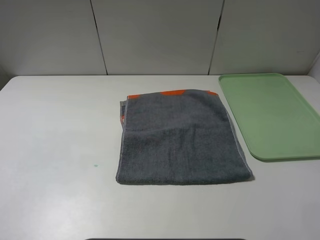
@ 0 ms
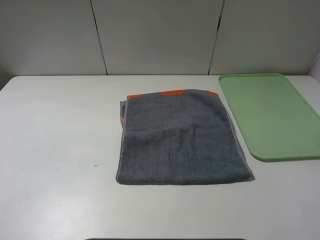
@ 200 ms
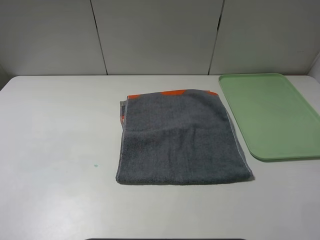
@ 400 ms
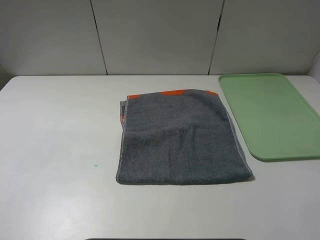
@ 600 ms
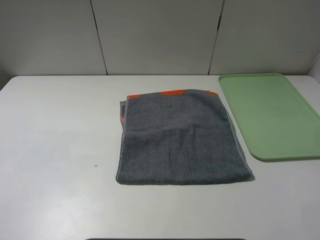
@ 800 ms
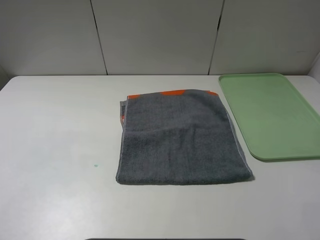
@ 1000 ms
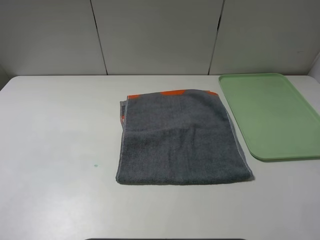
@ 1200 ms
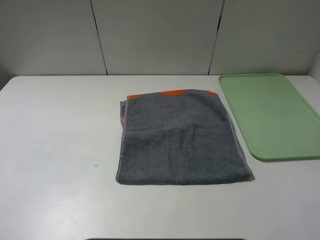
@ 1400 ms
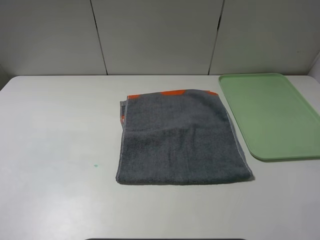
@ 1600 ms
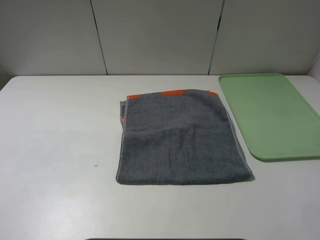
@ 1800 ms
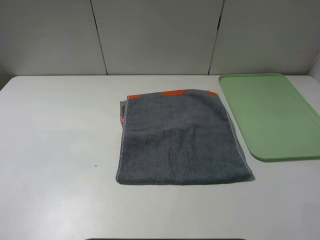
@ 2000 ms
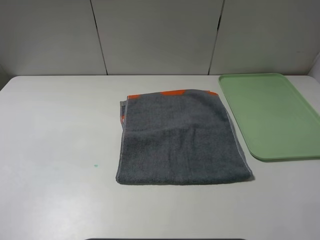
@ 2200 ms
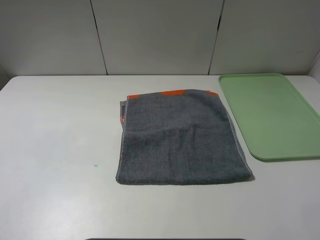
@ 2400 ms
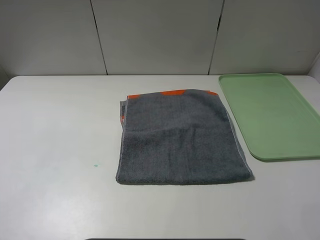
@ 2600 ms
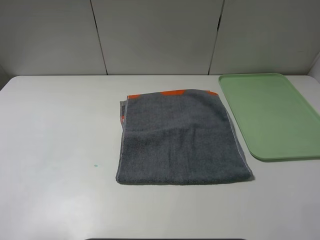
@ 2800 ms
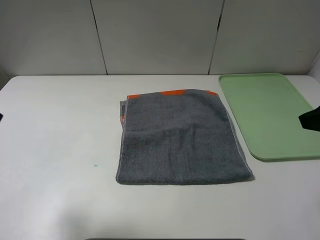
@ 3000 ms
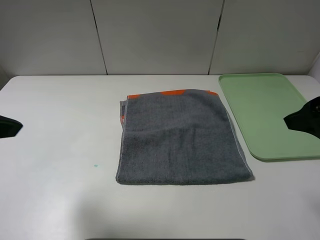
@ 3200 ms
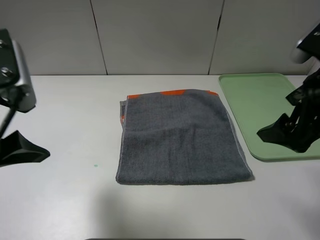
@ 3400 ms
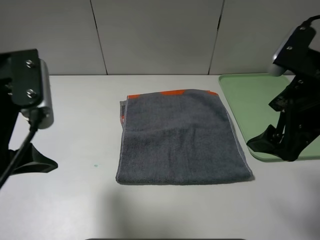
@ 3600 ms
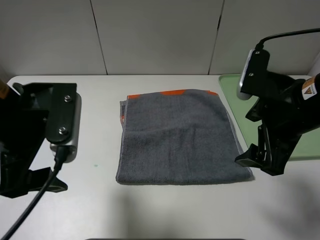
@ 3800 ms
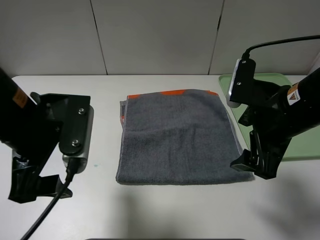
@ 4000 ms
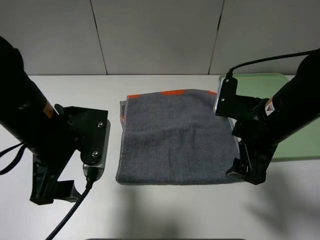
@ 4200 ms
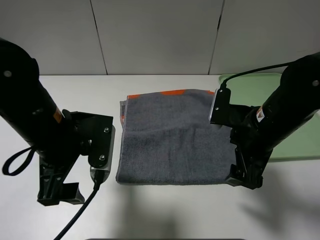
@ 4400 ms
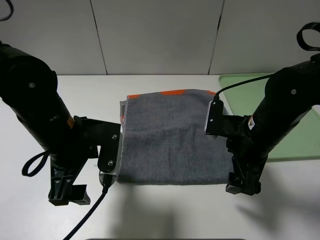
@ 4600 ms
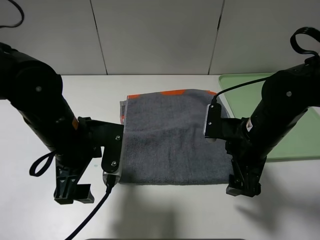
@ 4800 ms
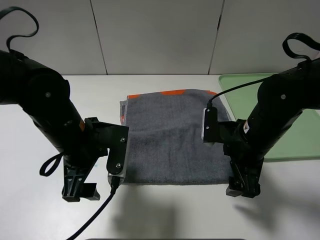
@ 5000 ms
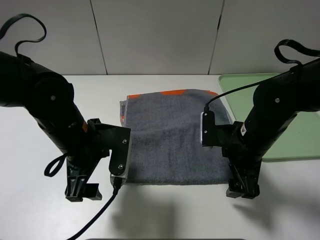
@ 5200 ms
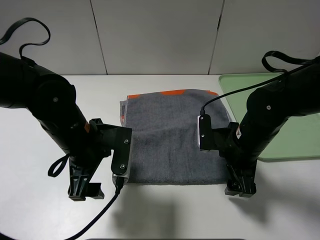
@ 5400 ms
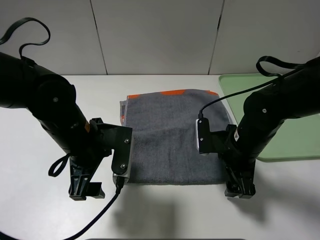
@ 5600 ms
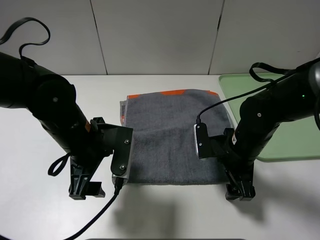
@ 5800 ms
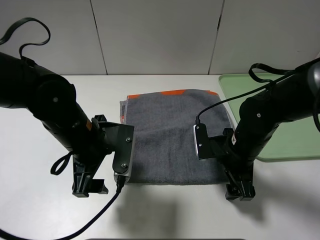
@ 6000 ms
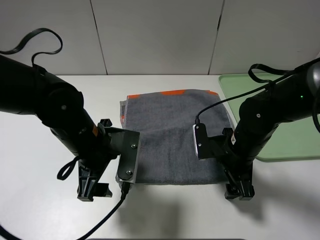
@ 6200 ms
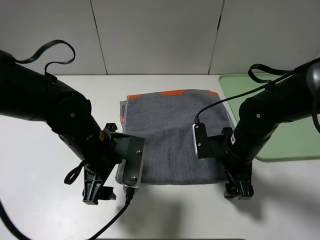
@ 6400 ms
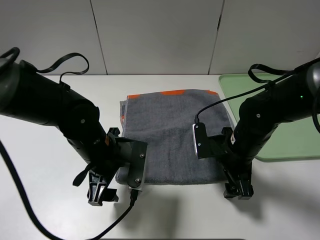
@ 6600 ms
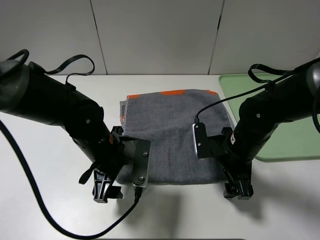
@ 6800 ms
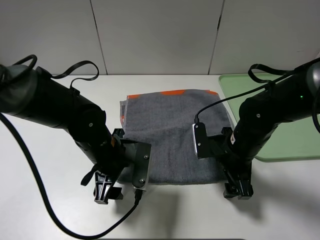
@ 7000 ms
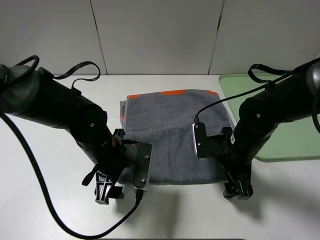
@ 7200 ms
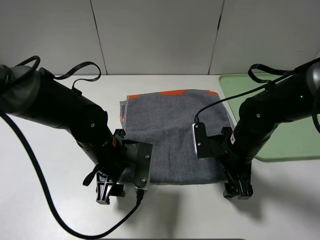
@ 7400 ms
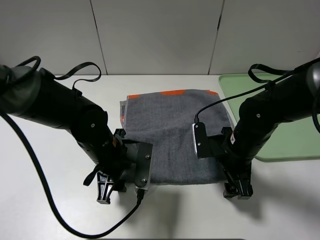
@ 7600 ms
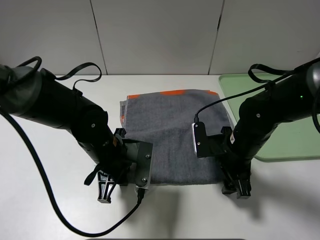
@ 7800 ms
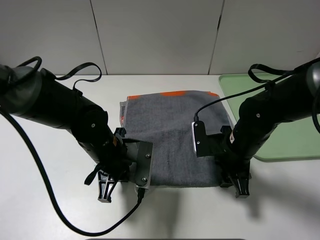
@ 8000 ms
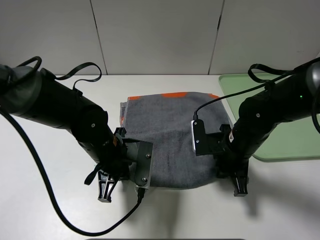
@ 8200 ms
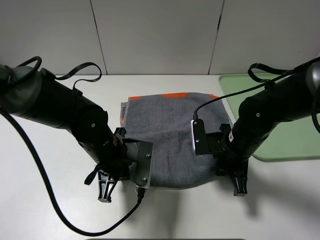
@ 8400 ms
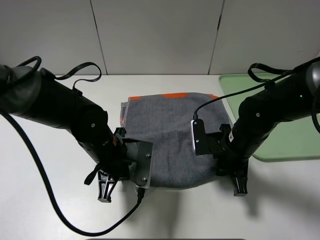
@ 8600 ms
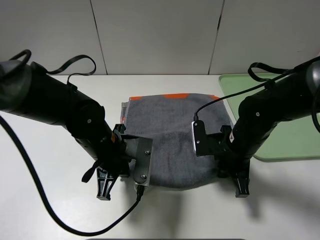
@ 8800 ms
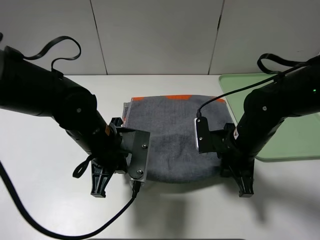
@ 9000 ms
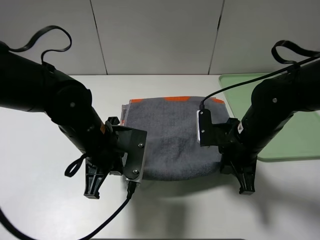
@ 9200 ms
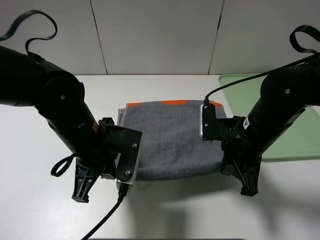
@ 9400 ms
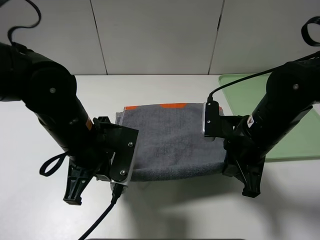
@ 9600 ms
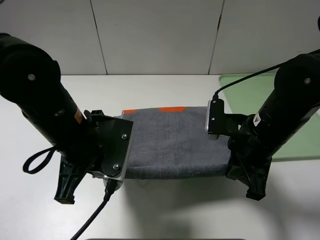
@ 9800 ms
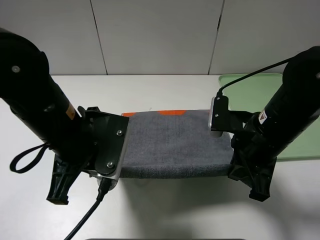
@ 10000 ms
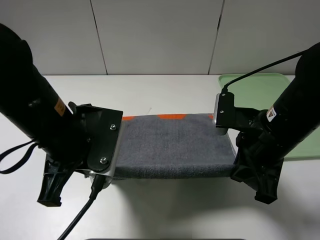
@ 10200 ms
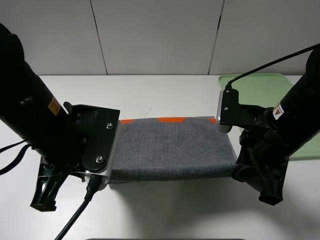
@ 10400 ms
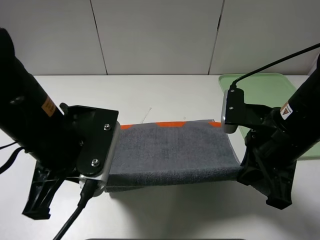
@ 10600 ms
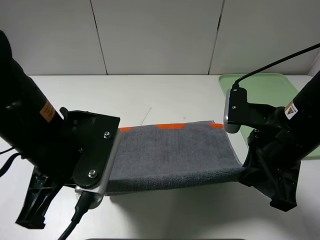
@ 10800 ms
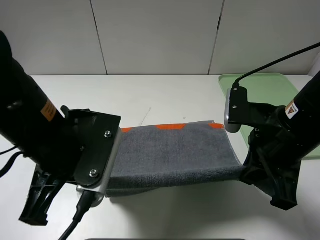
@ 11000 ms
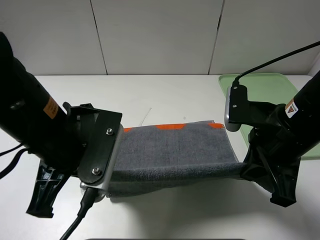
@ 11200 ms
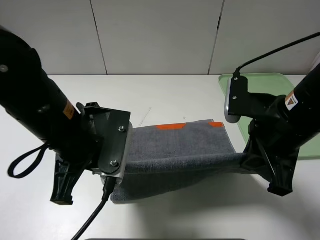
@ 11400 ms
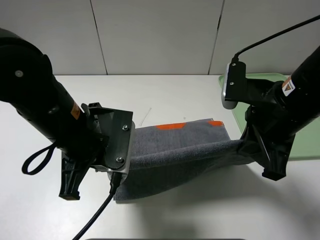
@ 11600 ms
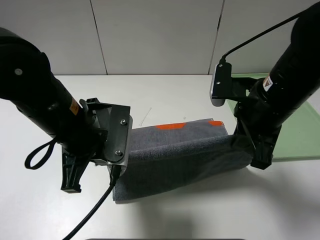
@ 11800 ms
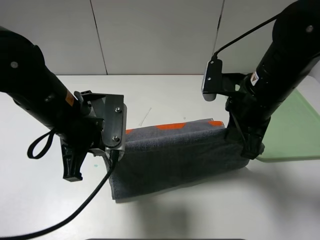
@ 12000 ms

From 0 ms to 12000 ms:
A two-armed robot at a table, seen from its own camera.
From 0 ms to 1600 ms: Both grippers stay about where they are.
From 1600 ms to 3000 ms: The right gripper is displaced forward by about 15 cm; the left gripper heads forward and upward, covering approximately 15 cm.
From 3000 ms to 4400 ms: The left gripper shifts some 20 cm downward, to the right and forward, while the right gripper heads downward, to the left and forward, covering approximately 20 cm.
From 4400 ms to 6000 ms: The right gripper is displaced downward by some 10 cm; the left gripper shifts by roughly 5 cm.
From 6000 ms to 7600 ms: The left gripper shifts some 5 cm downward, and closes up.
From 7600 ms to 9000 ms: The right gripper closes its fingers. Meanwhile the left gripper closes.
From 9000 ms to 10400 ms: Both grippers move upward, about 10 cm.
From 10400 ms to 12000 ms: The right gripper heads forward, covering approximately 5 cm, while the left gripper changes place by some 5 cm.

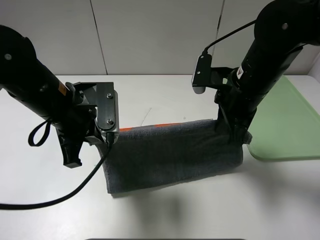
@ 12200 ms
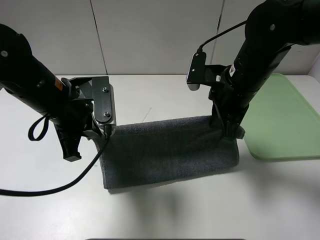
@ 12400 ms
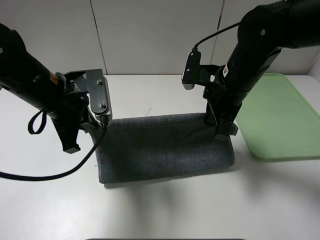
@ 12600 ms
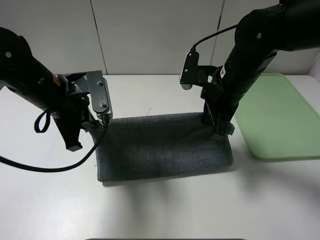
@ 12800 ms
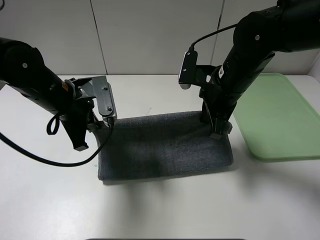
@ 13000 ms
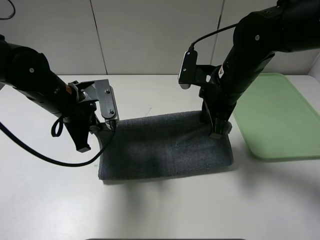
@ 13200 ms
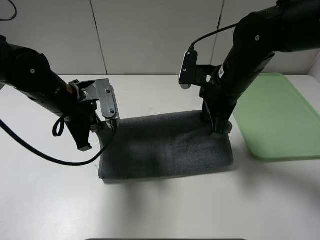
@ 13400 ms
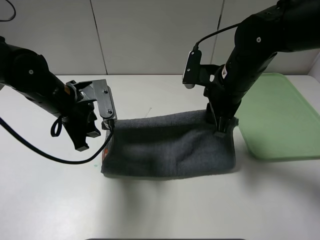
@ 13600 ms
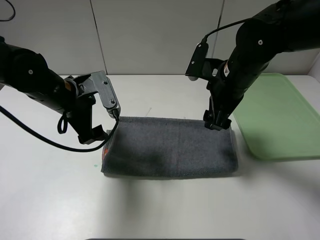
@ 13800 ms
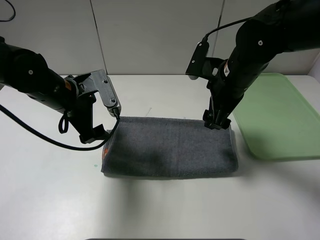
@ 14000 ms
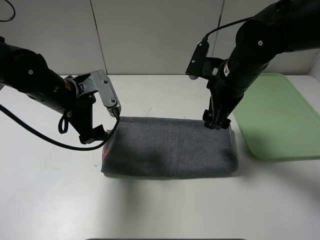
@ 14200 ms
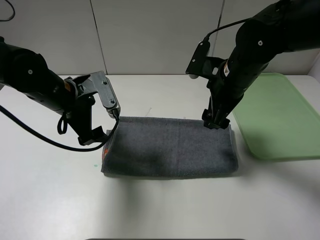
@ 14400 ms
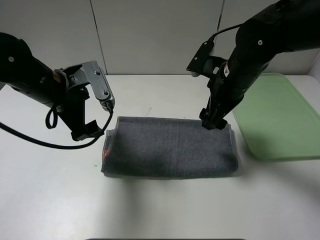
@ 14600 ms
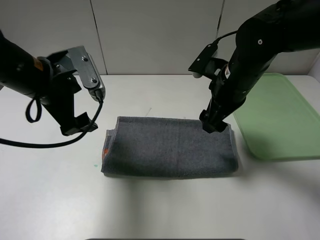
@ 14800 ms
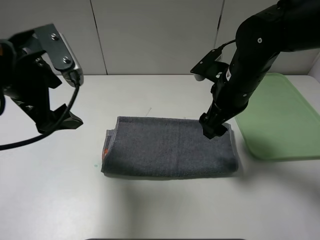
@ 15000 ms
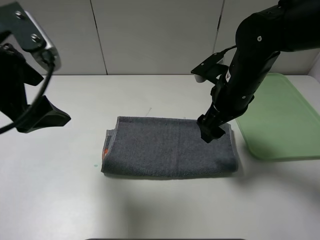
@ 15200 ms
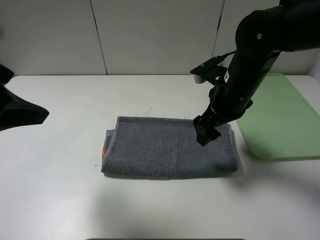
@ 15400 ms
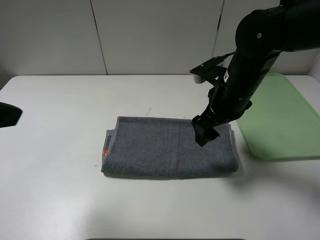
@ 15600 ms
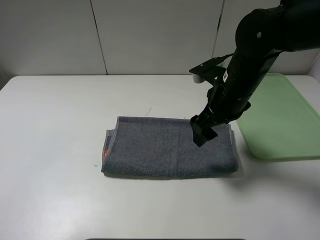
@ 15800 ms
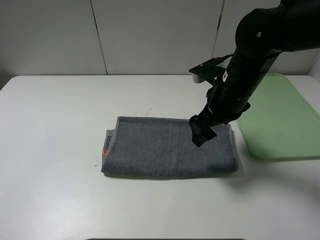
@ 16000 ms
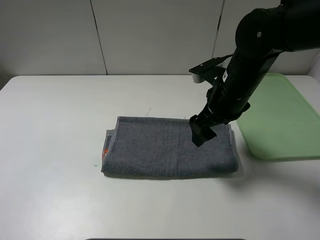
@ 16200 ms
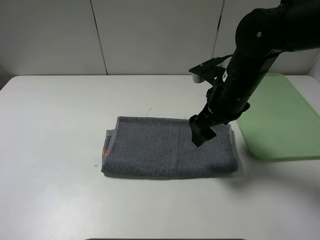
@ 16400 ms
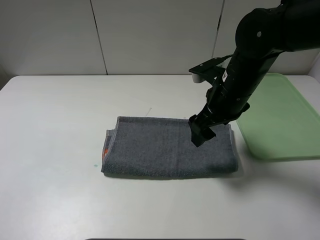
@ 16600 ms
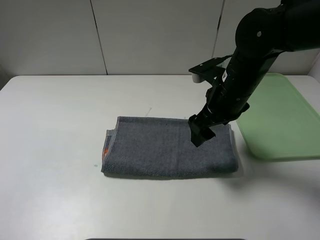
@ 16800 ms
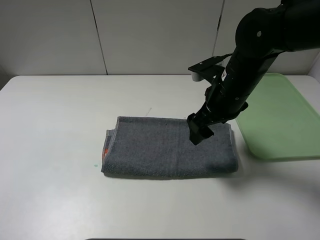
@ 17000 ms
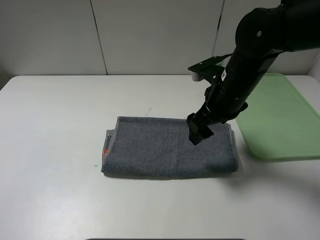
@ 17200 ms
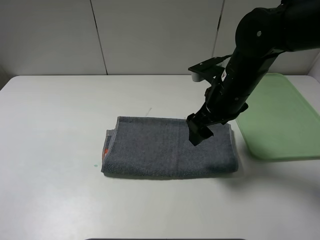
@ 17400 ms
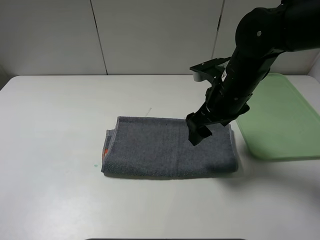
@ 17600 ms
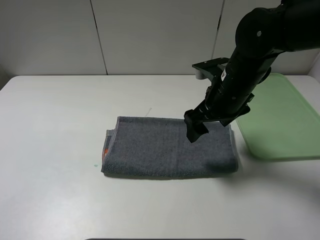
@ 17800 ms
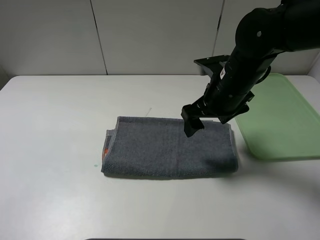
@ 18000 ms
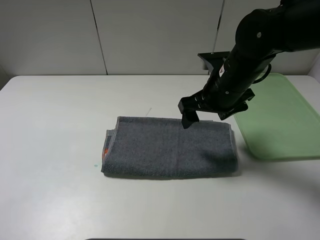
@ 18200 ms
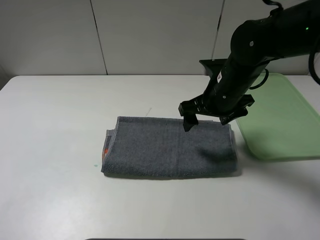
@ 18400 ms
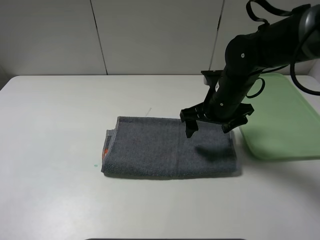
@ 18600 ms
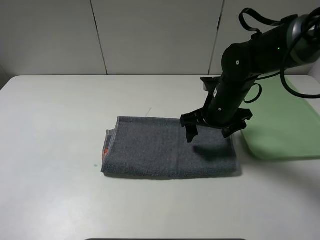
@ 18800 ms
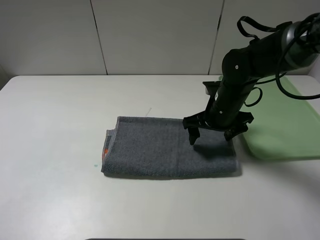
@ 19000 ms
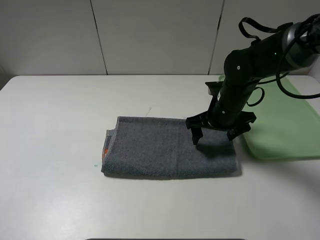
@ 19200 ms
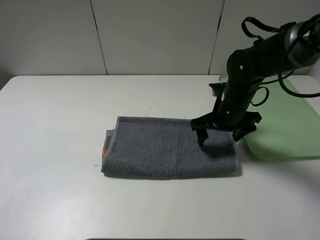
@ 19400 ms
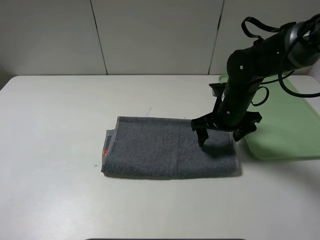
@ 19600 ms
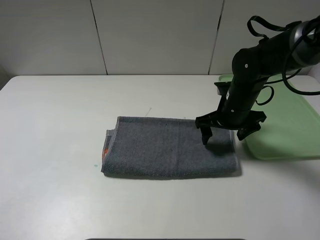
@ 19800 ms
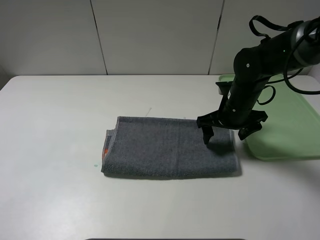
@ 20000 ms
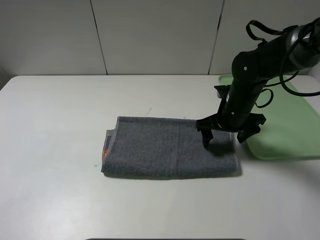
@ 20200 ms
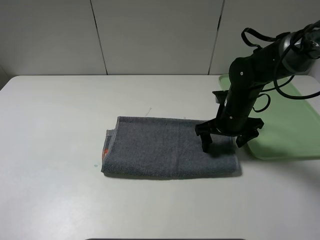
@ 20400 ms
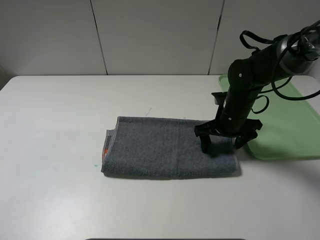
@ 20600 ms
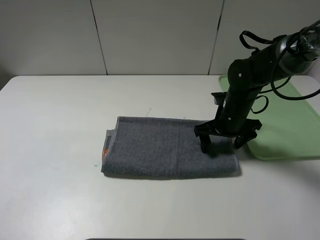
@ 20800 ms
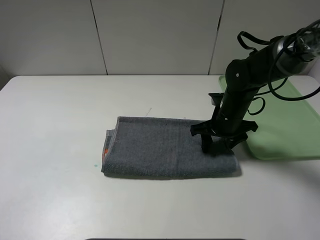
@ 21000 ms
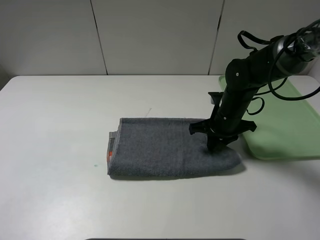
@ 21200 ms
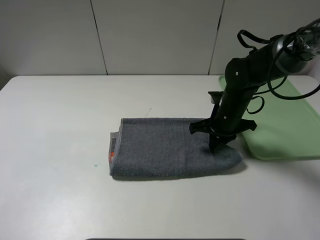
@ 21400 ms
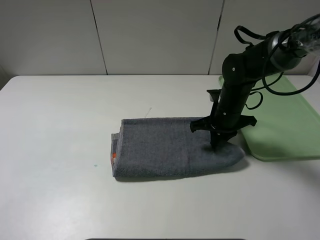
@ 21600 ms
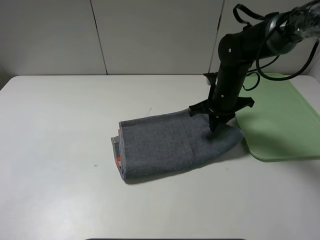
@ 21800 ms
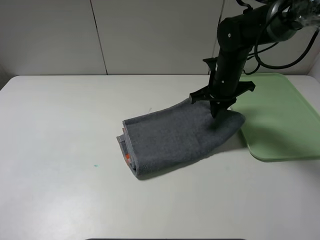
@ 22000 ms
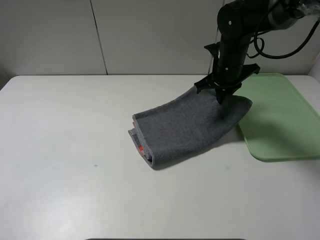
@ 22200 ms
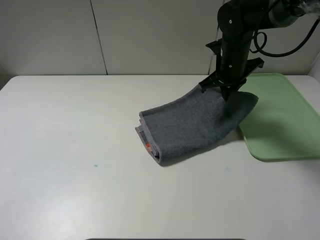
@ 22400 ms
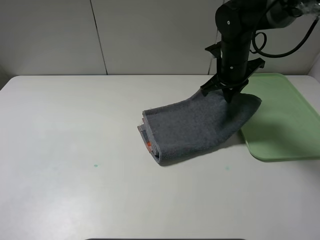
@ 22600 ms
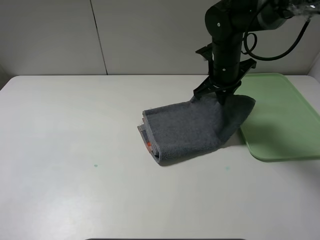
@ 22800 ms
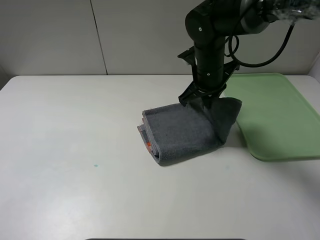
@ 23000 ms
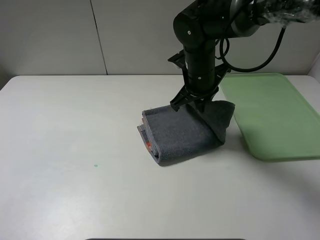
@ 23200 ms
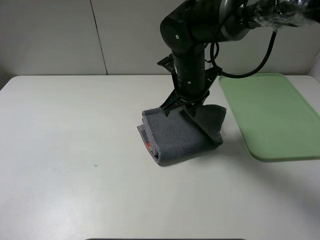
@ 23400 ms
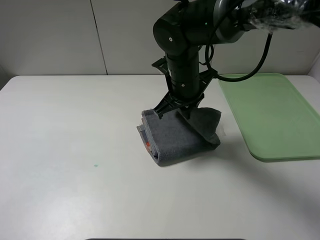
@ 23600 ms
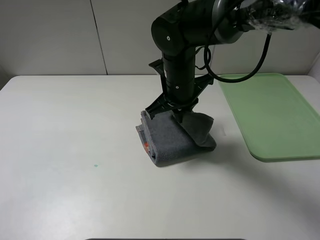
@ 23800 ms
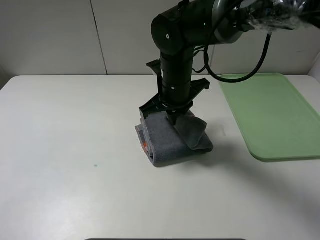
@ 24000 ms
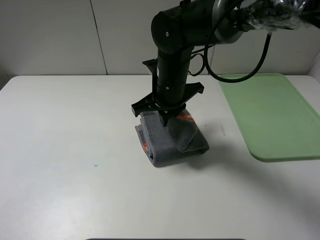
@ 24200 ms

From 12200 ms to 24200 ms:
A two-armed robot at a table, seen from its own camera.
From 12200 ms to 13800 ms: The right gripper opens its fingers; the left gripper goes about 5 cm forward, and opens.
From 13800 ms to 15200 ms: The left gripper travels upward and backward by approximately 15 cm.
From 15200 ms to 16600 ms: The left gripper travels backward and to the left by some 20 cm.
From 18200 ms to 19800 ms: The right gripper goes approximately 5 cm downward.
From 19800 ms to 21200 ms: The right gripper closes its fingers.
From 21200 ms to 22600 ms: The right gripper shifts about 10 cm upward and forward.
From 22600 ms to 24200 ms: The right gripper is displaced to the left and backward by approximately 15 cm.
